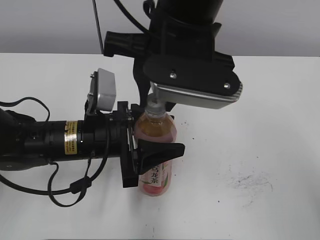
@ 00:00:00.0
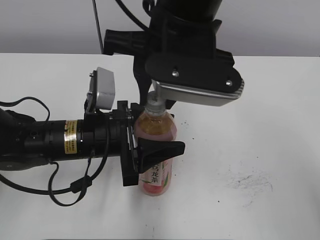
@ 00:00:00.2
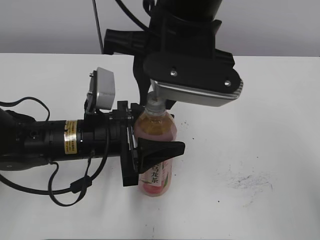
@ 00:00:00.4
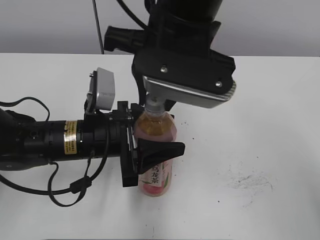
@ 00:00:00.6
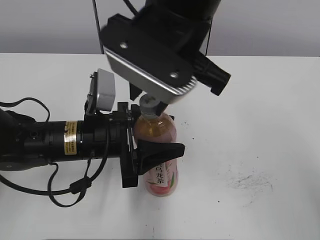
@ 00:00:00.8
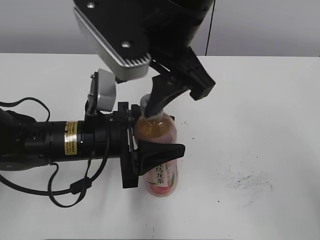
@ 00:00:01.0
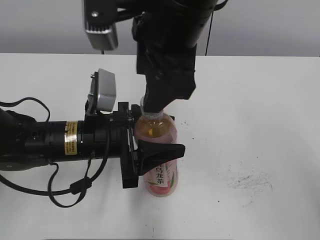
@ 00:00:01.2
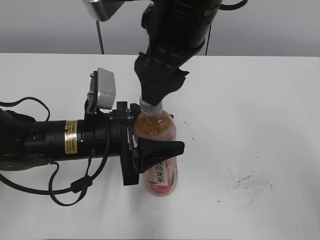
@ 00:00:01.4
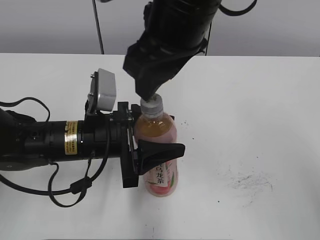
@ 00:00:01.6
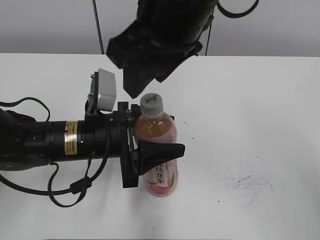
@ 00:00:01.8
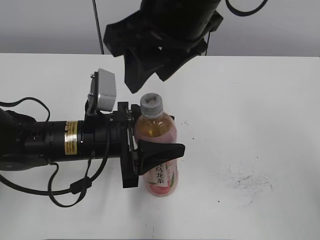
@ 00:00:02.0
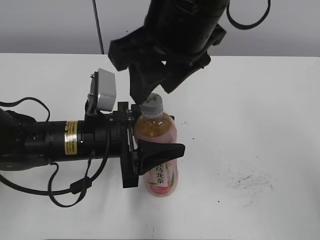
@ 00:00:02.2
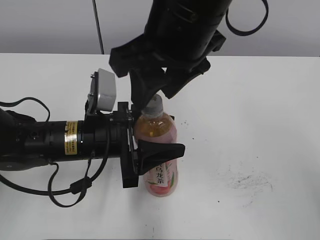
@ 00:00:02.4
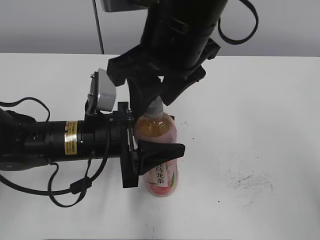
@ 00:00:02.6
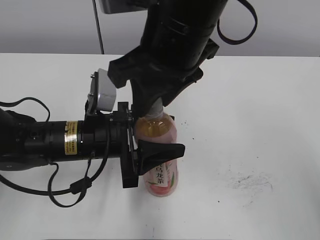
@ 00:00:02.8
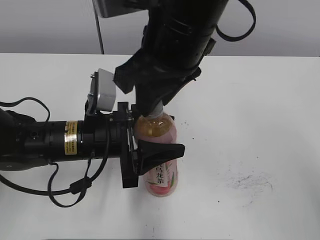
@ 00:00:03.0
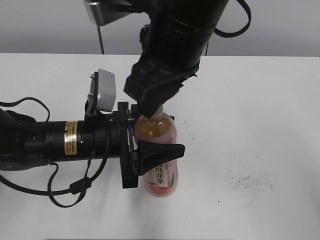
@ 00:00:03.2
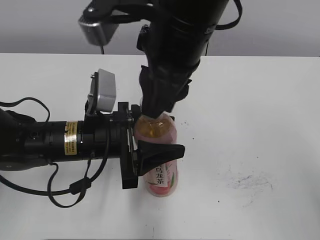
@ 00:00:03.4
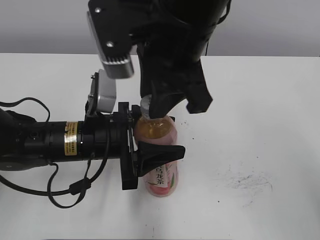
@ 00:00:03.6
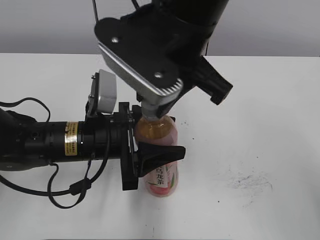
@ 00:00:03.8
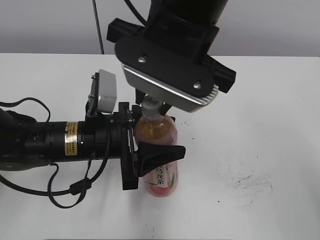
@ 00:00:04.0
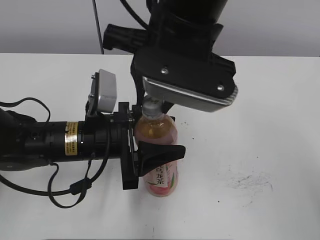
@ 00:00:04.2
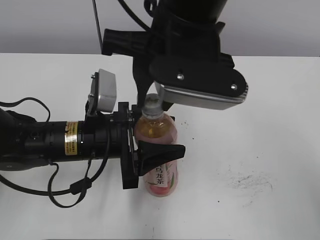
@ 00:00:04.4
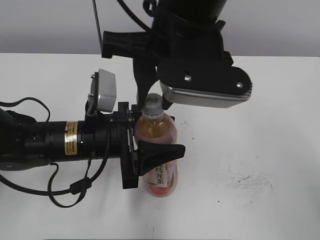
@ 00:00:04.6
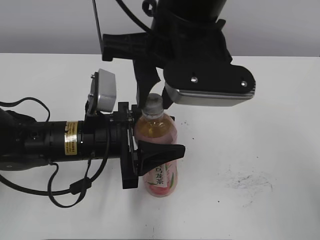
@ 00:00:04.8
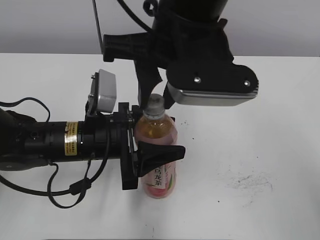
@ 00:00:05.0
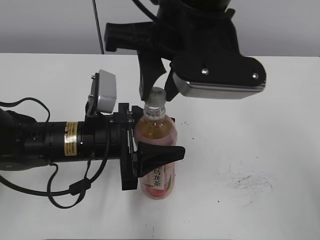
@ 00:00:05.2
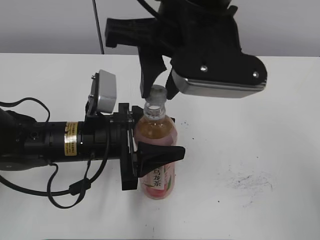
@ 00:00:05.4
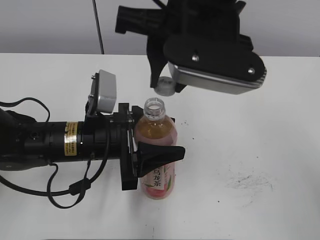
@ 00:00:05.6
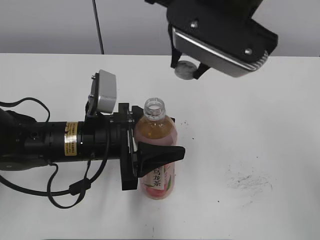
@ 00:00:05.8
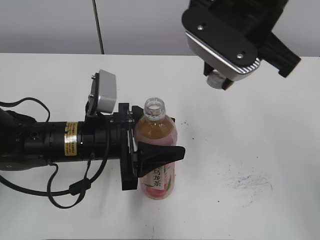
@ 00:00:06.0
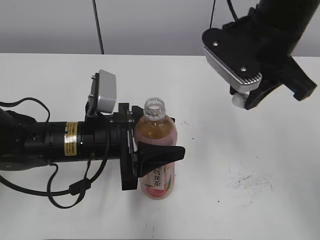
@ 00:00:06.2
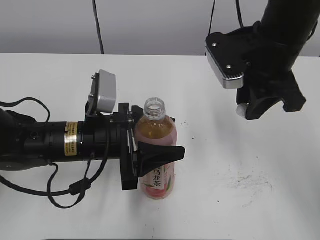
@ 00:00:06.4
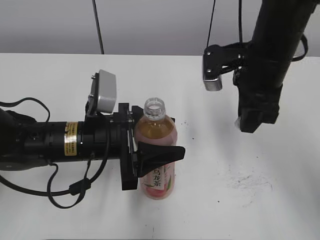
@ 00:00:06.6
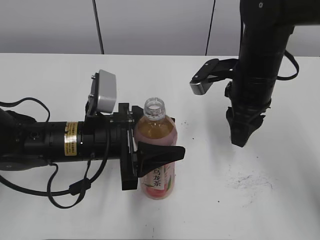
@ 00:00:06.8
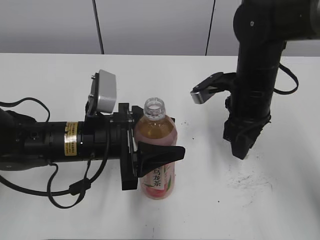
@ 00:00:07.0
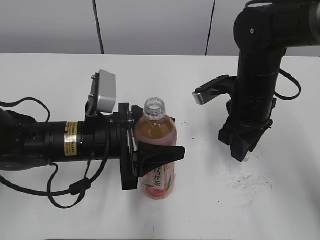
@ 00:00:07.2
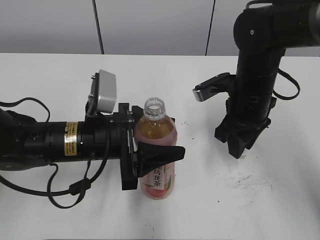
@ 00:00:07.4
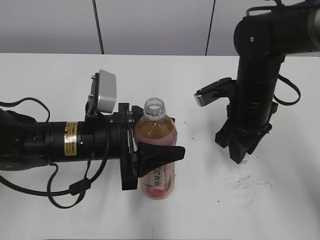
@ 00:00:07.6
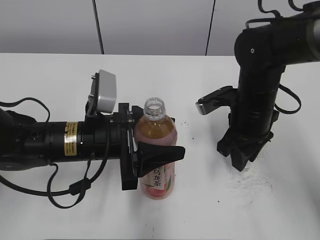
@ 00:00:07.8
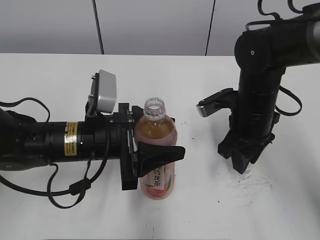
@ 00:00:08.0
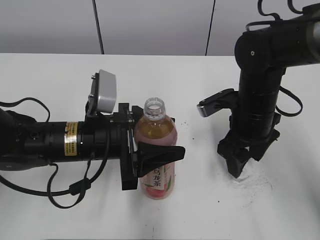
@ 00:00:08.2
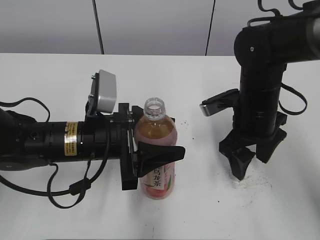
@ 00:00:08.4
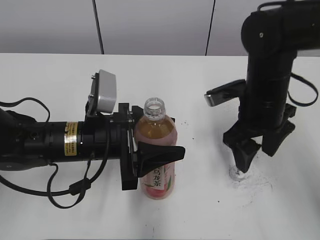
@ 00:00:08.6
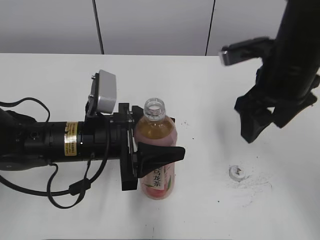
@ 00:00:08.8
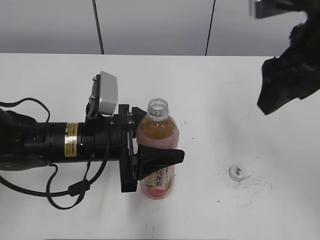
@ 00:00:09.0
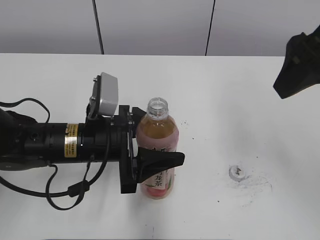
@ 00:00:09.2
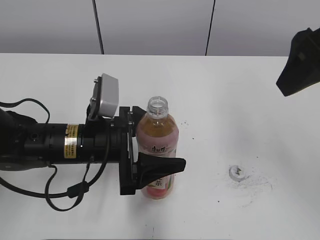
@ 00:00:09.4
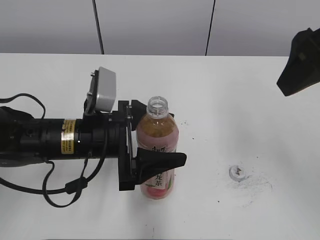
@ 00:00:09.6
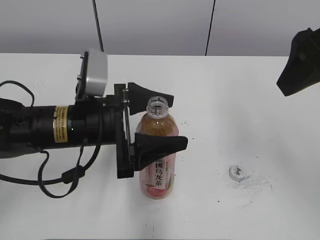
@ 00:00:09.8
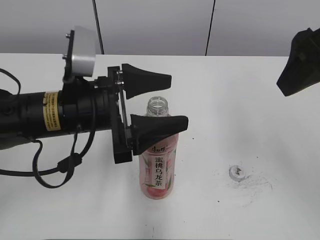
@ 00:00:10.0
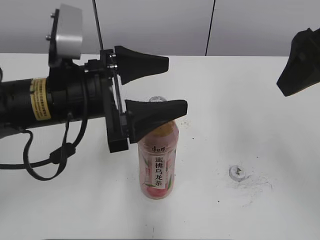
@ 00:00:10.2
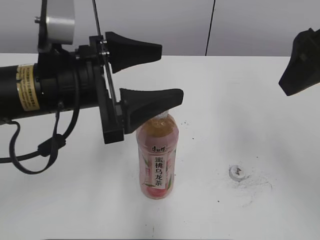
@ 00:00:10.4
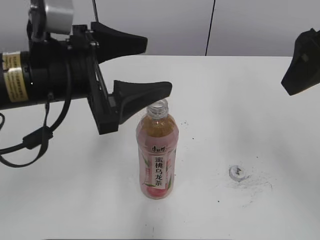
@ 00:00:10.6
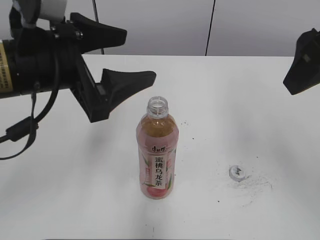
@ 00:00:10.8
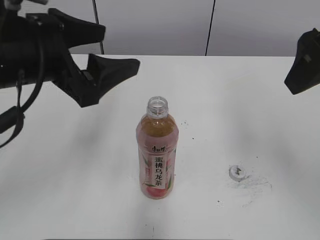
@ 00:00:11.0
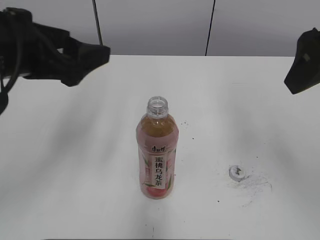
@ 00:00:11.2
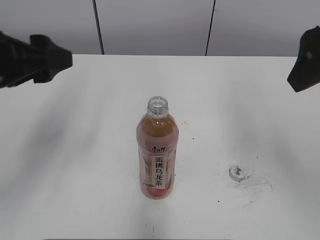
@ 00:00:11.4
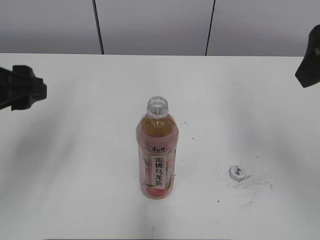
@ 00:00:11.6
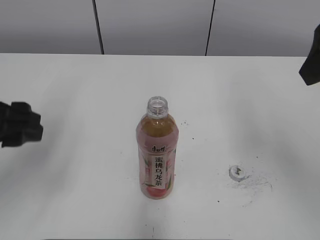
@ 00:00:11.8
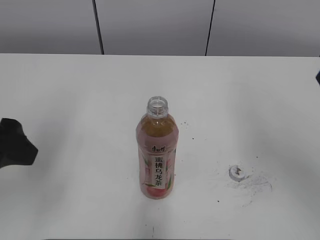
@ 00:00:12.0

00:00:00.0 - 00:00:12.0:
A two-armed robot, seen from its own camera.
Step, 00:00:05.2 - 00:00:08.0: Place the bottle cap on the right.
00:00:00.0 - 00:00:01.6: The right gripper opens up.
00:00:01.6 - 00:00:03.0: The right gripper closes.
00:00:04.4 - 00:00:06.0: The right gripper shifts roughly 5 cm to the right.
00:00:06.0 - 00:00:07.6: The right gripper travels downward by some 15 cm.
00:00:07.6 - 00:00:09.0: The right gripper goes some 15 cm upward and backward, and opens.
00:00:09.0 - 00:00:10.4: The right gripper ends up about 5 cm from where it was, while the left gripper moves upward, approximately 10 cm, and opens.
00:00:10.4 - 00:00:12.0: The left gripper shifts roughly 10 cm to the left and backward.

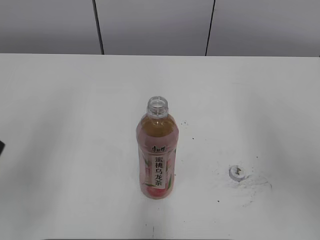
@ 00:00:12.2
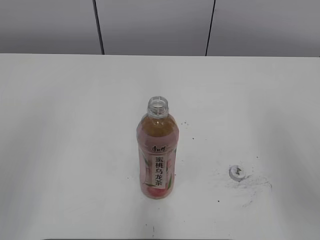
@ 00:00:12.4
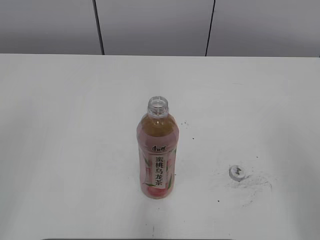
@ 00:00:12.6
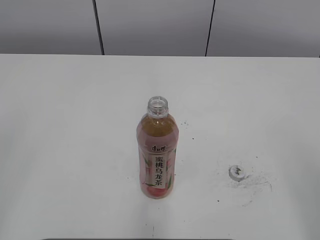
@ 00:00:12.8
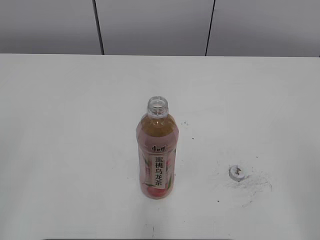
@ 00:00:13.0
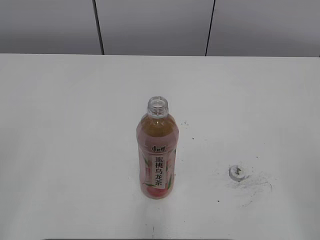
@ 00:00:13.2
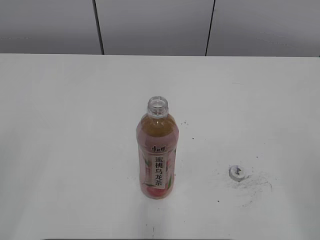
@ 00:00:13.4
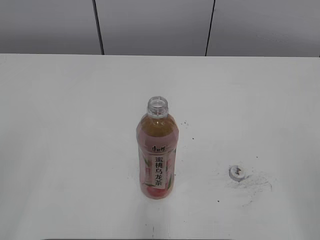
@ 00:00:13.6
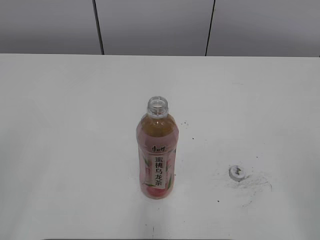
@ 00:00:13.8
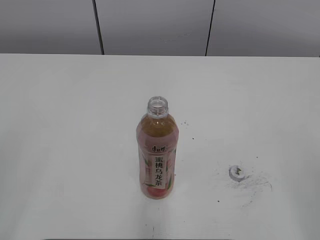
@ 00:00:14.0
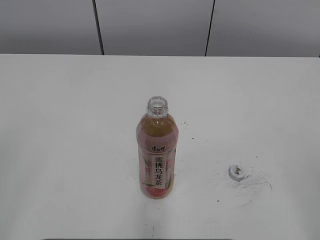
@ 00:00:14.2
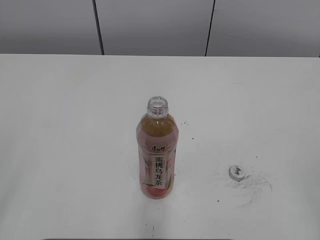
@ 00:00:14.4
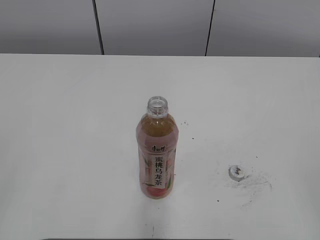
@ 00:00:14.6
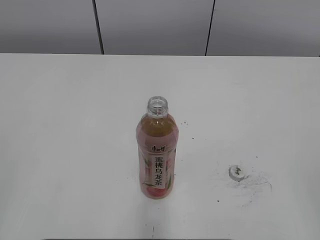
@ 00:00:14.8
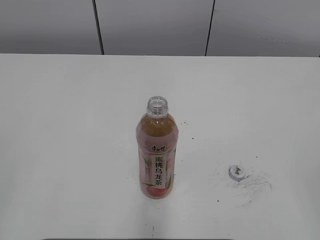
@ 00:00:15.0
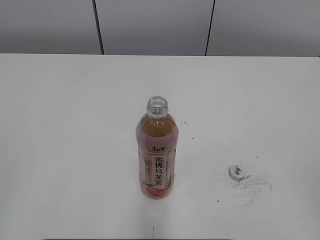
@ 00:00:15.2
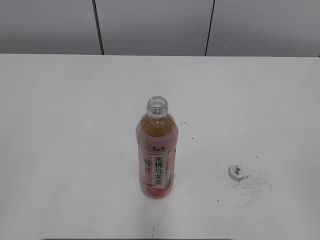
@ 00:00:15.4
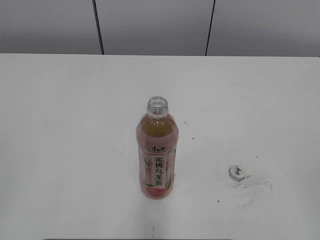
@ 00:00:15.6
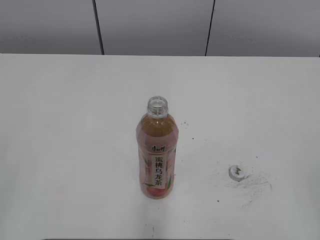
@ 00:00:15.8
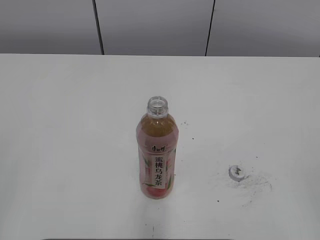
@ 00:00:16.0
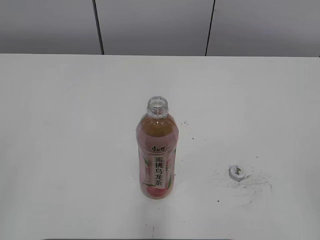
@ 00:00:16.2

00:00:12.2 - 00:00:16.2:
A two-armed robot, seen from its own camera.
00:00:12.2 - 00:00:13.6: The left gripper moves backward and to the left, some 15 cm.
00:00:14.8 - 00:00:16.2: Both grippers stay about where they are.
